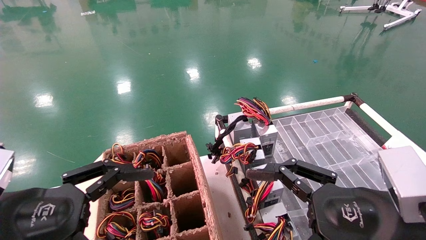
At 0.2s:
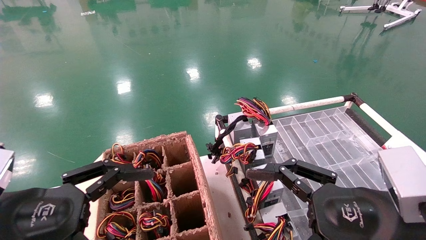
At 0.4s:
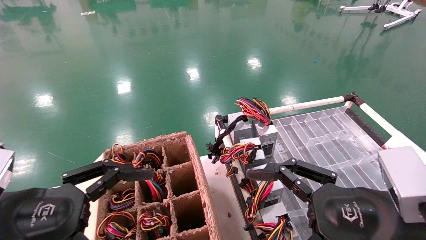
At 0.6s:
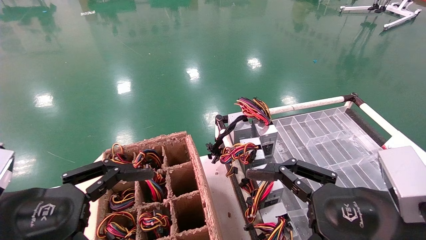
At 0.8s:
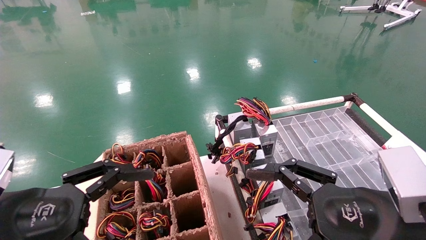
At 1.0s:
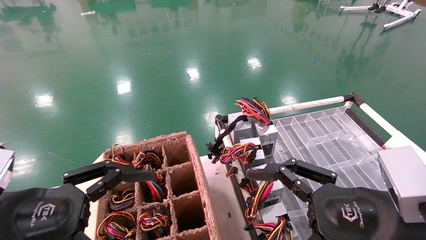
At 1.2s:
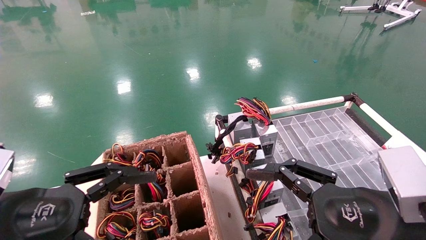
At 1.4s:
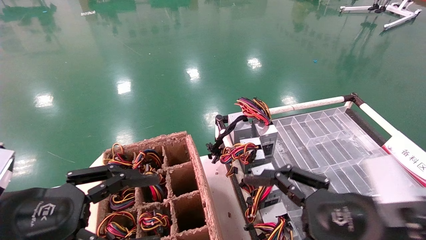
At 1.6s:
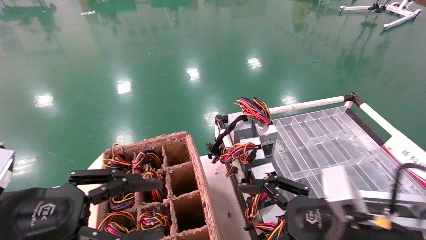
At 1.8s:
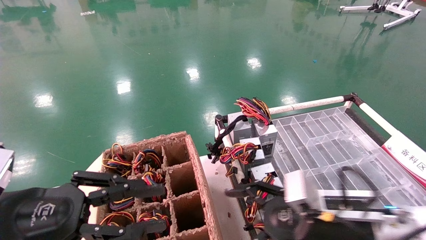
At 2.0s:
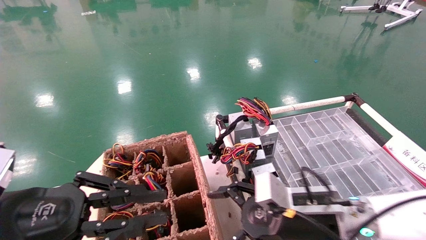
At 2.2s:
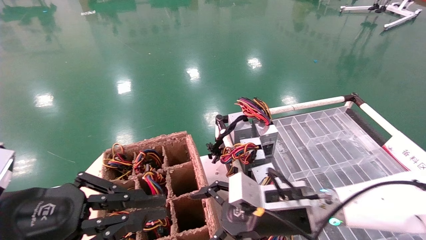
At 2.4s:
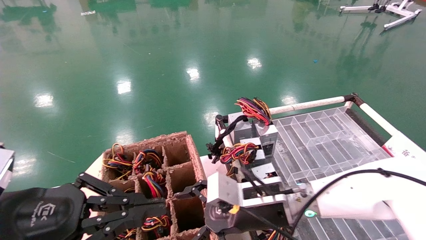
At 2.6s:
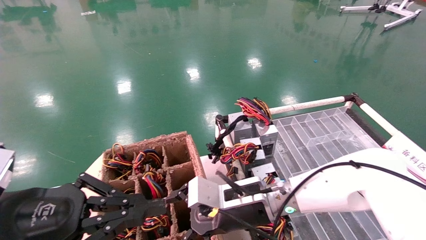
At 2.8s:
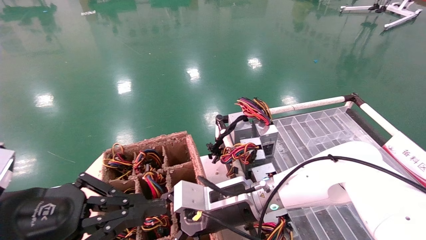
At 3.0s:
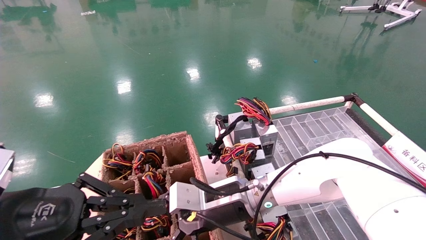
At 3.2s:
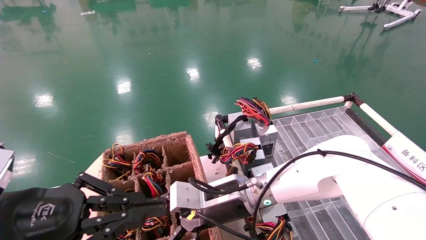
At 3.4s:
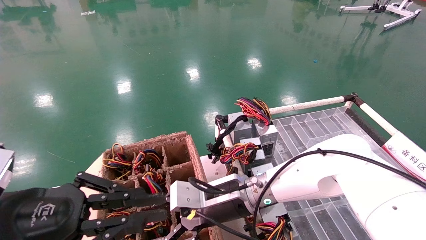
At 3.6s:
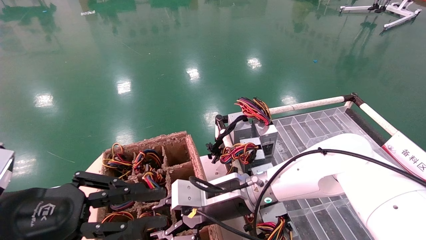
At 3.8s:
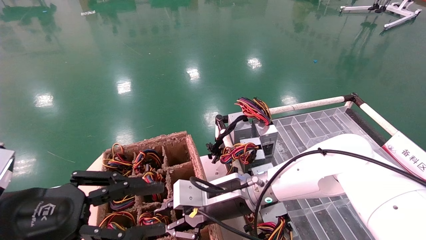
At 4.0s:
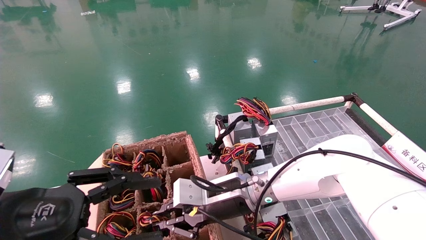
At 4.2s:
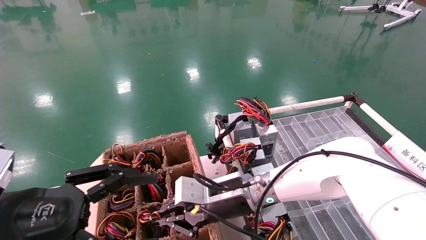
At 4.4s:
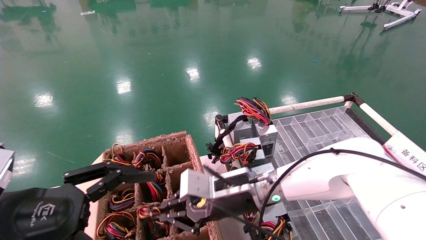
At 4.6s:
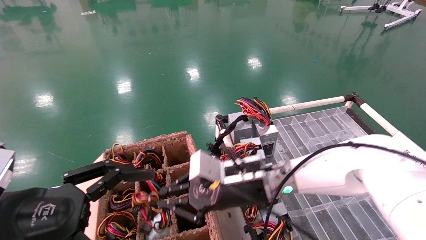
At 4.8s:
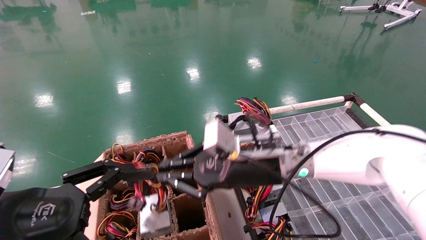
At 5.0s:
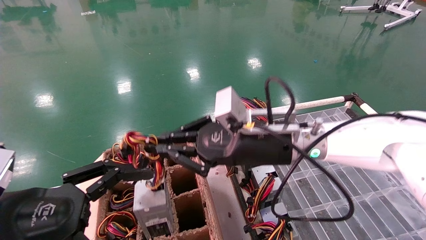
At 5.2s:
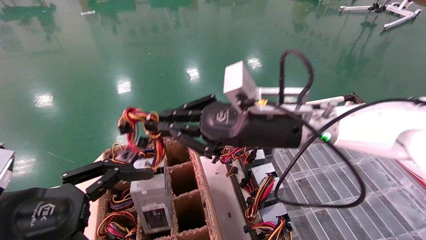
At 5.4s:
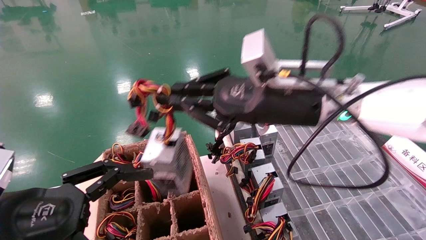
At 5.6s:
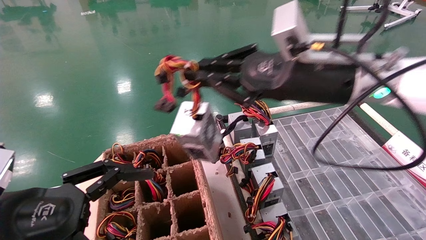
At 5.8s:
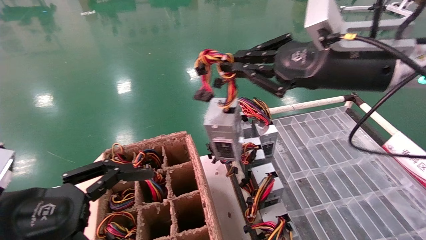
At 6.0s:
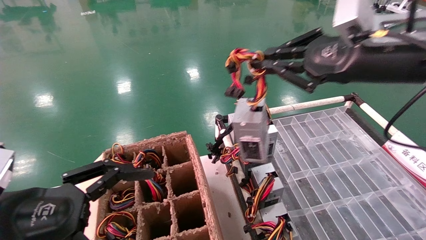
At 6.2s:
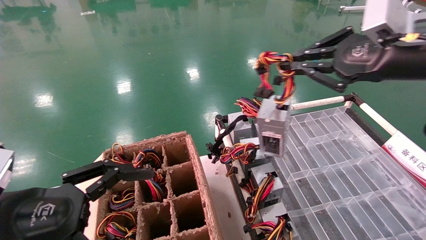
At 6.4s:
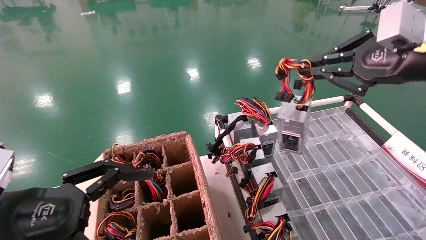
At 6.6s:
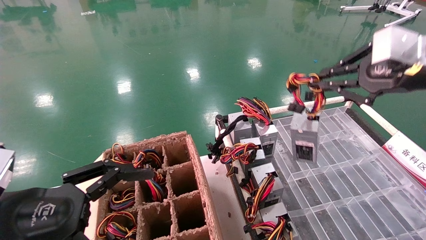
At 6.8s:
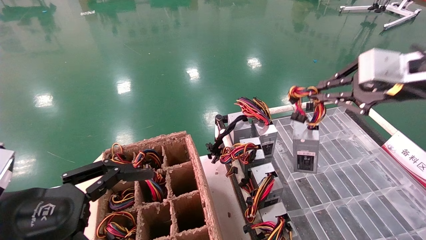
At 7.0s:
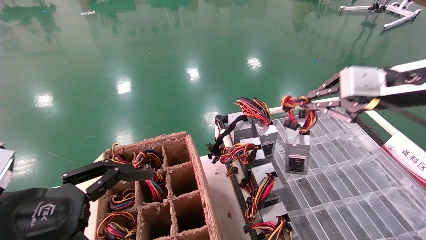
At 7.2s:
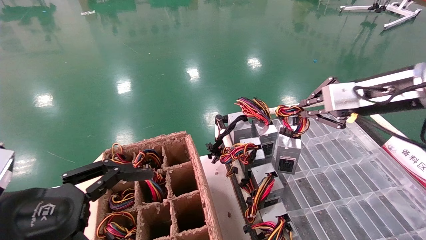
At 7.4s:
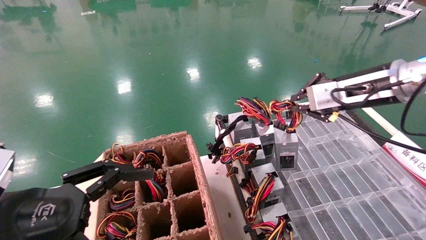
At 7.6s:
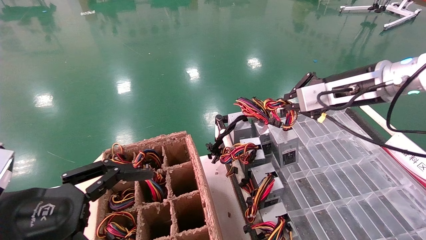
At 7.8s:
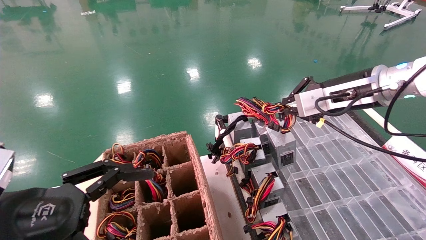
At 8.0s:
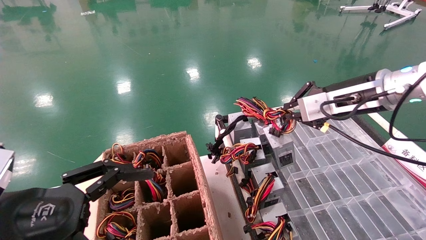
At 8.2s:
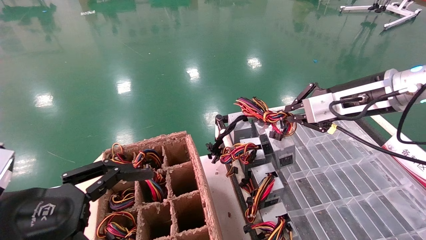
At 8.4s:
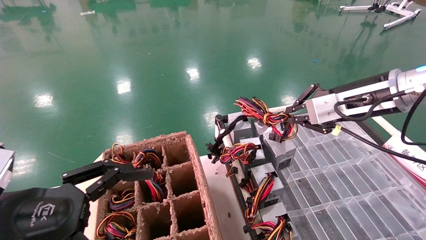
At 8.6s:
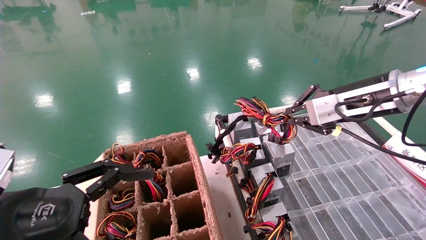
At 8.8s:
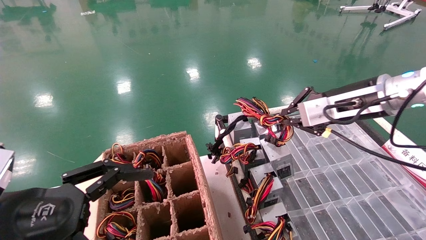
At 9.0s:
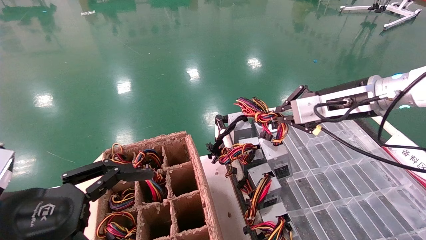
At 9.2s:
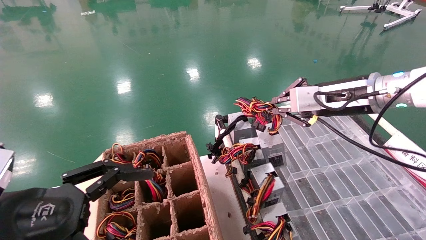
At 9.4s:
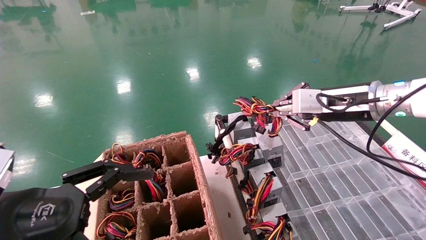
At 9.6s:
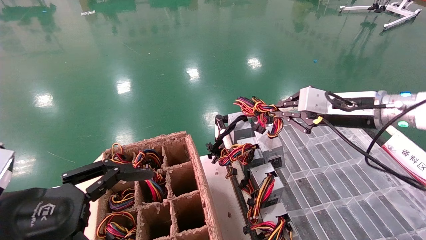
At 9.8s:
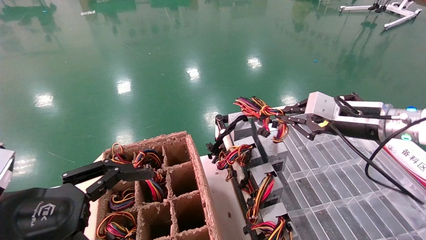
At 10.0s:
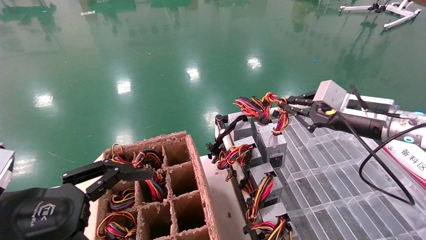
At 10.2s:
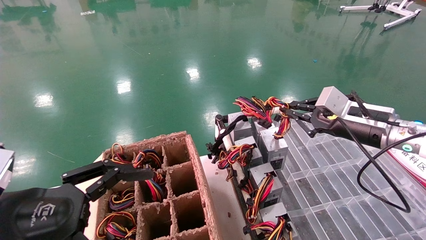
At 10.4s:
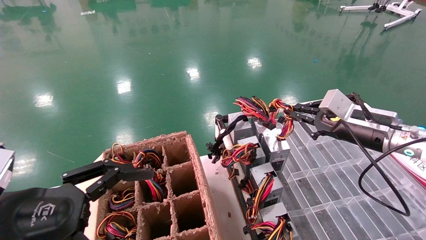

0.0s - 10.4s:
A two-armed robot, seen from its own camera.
Step, 2.6s - 4.2s: Grab and lift the power supply from the large box.
0.0s - 1.4s: The grippers move only a little.
1.4s - 3.0s: The left gripper closes its fingers. Meanwhile the right gripper goes roughly 25 cm to the left and forward.
3.0s - 4.4s: The right gripper closes, while the left gripper opens up.
4.4s - 6.0s: The right gripper goes some 30 cm upward and to the right.
6.0s - 7.4s: The right gripper goes roughly 5 cm forward.
7.4s - 9.0s: The grippers make only small movements.
9.0s - 10.4s: The right gripper is displaced downward and to the right by about 10 cm.

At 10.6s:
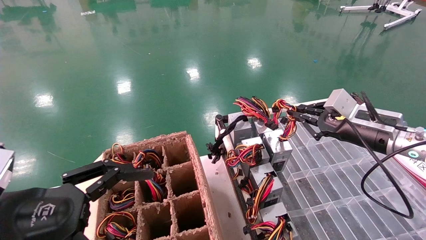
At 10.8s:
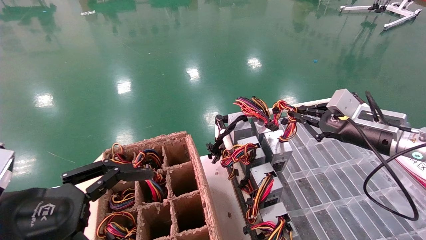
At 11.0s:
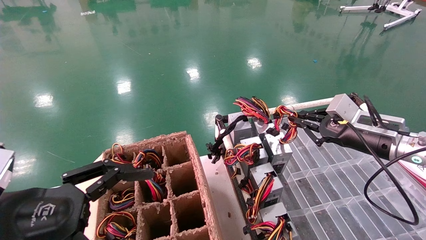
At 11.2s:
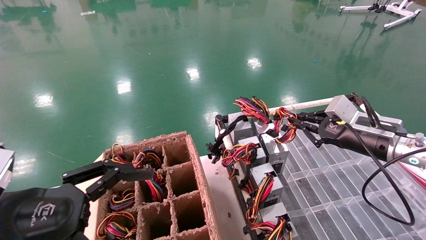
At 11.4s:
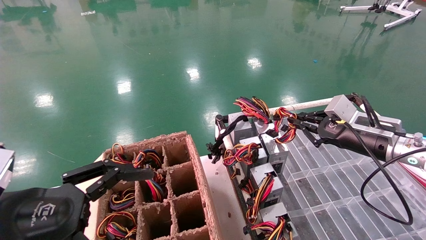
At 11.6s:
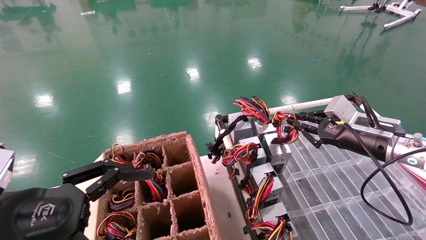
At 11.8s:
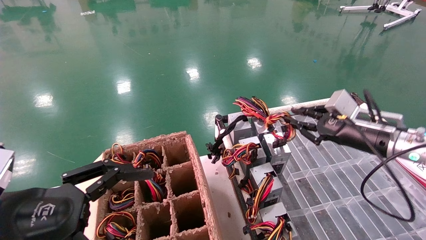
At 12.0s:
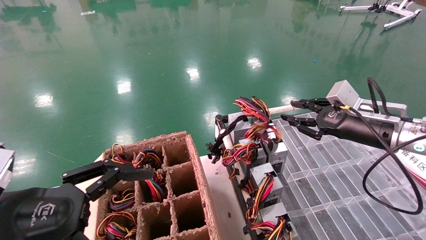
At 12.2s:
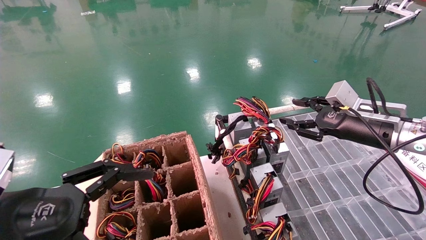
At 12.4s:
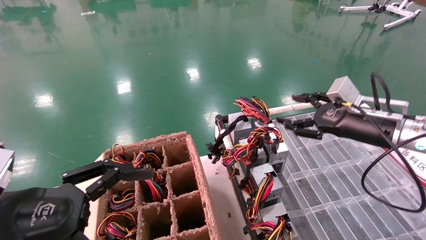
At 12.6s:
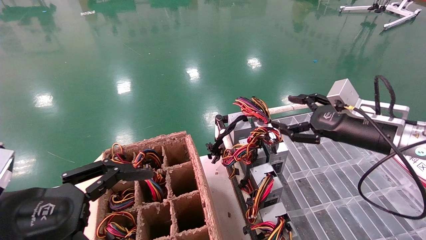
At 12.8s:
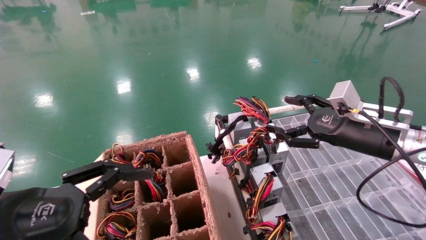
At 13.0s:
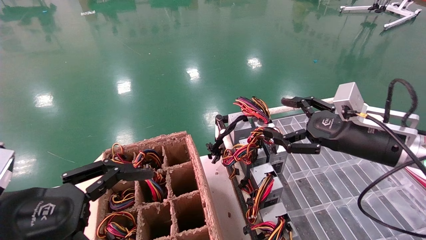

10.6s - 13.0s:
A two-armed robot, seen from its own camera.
10.6s - 11.8s: The grippers stay close to where they were, moving slightly.
11.8s - 13.0s: The right gripper changes place by roughly 5 cm, and opens its fingers.
